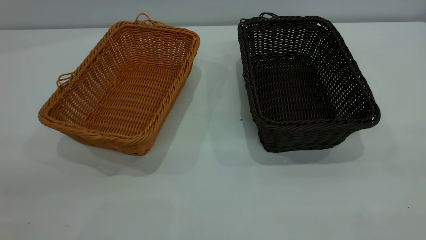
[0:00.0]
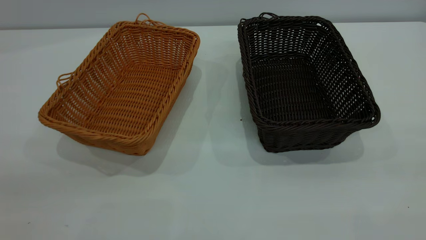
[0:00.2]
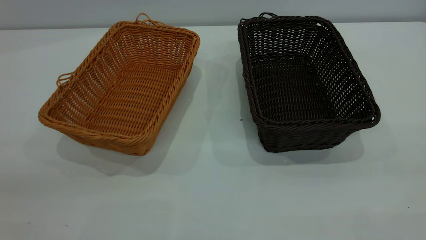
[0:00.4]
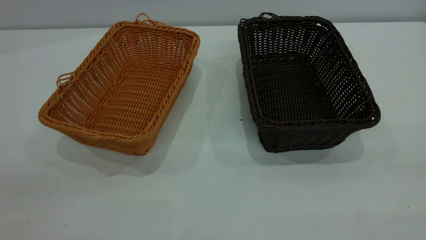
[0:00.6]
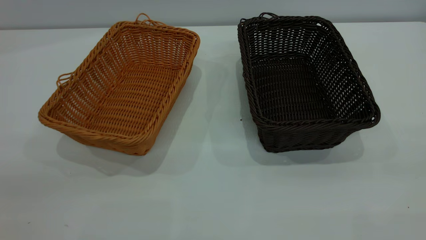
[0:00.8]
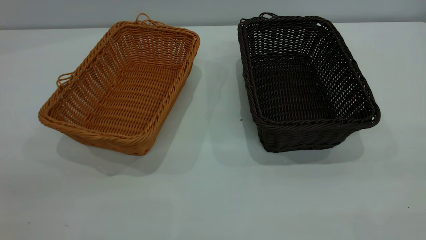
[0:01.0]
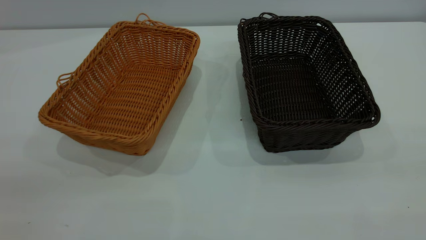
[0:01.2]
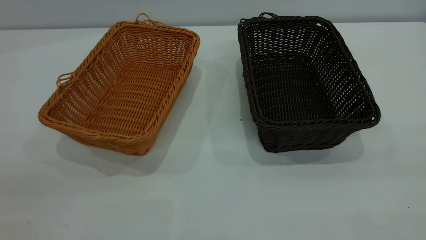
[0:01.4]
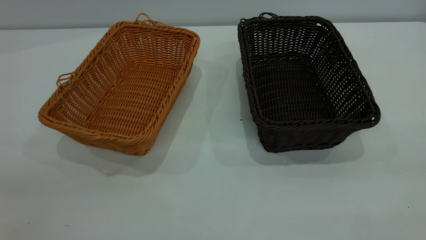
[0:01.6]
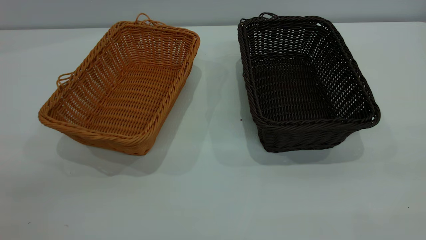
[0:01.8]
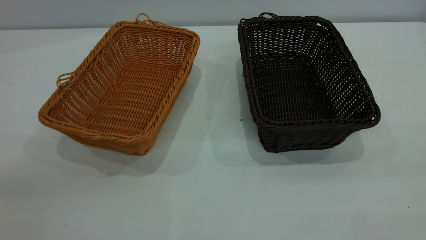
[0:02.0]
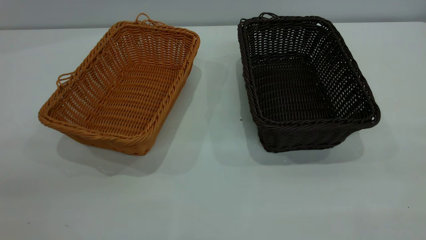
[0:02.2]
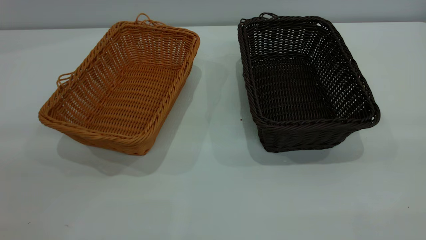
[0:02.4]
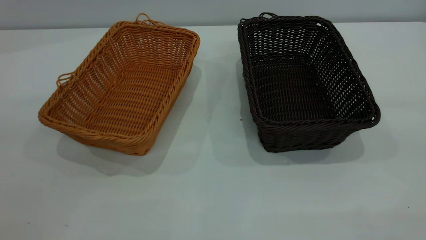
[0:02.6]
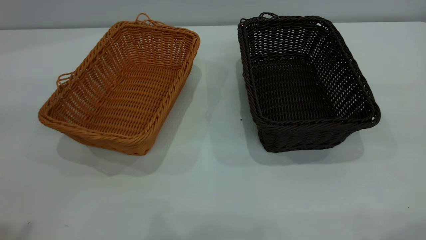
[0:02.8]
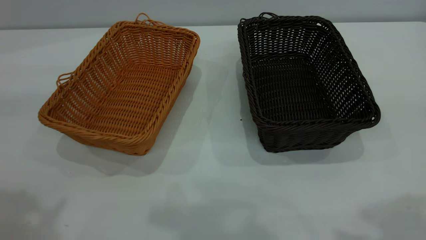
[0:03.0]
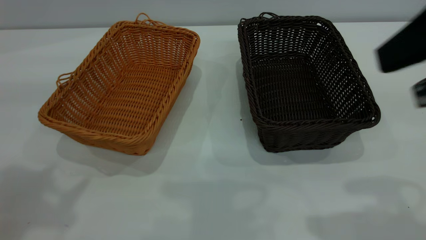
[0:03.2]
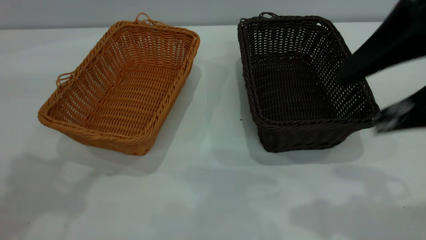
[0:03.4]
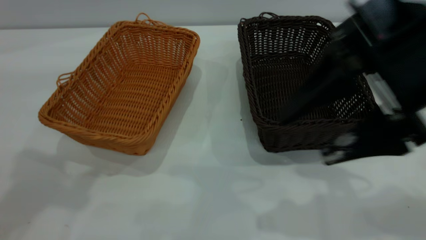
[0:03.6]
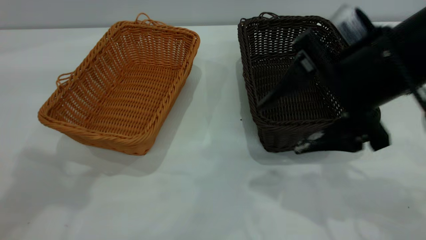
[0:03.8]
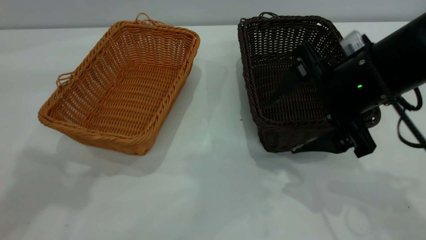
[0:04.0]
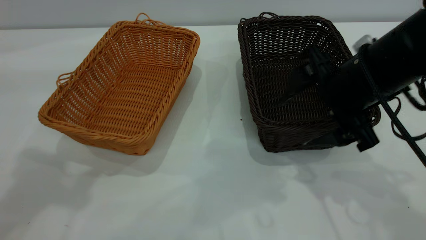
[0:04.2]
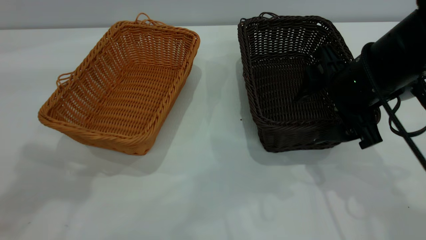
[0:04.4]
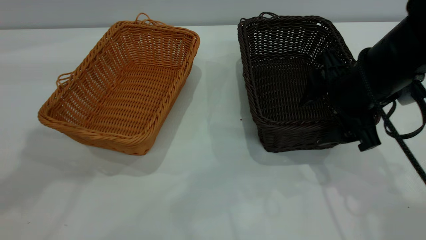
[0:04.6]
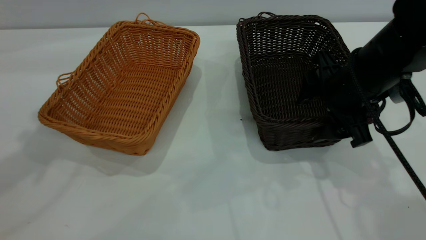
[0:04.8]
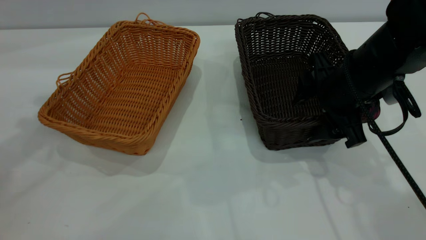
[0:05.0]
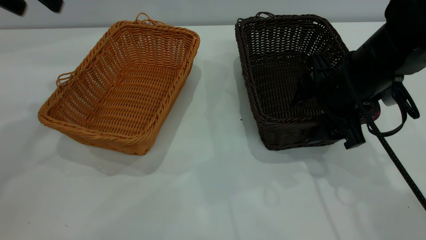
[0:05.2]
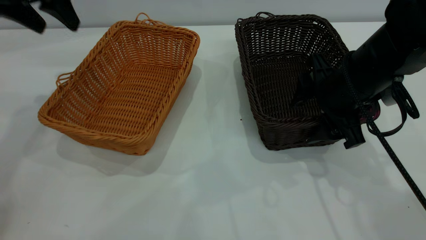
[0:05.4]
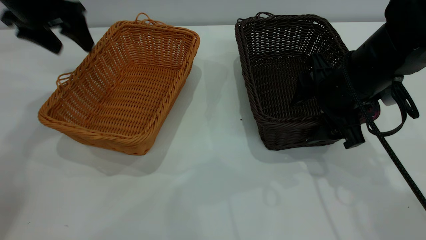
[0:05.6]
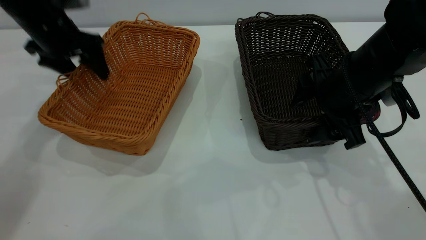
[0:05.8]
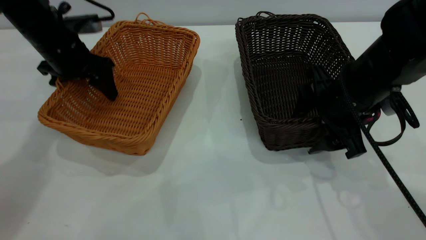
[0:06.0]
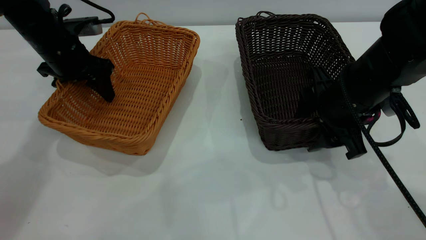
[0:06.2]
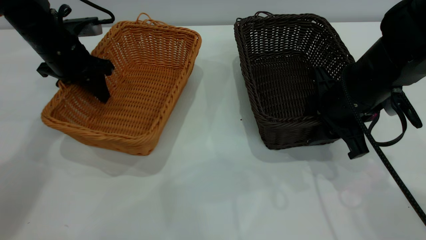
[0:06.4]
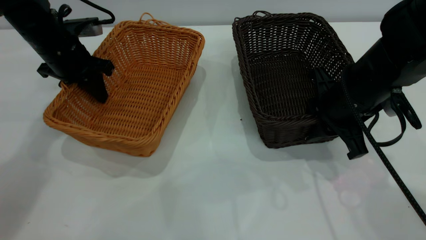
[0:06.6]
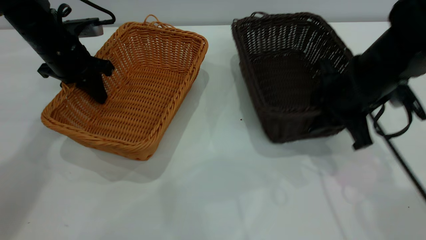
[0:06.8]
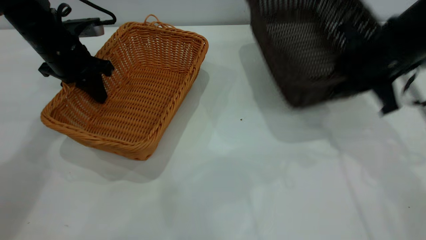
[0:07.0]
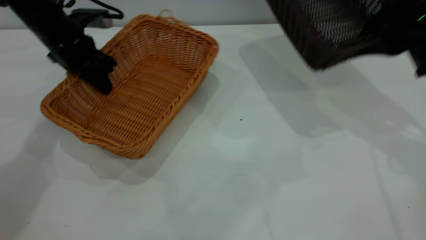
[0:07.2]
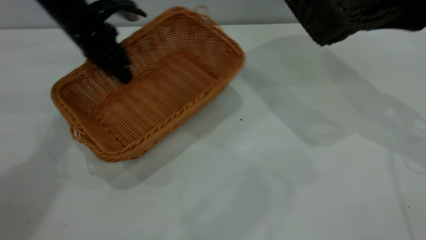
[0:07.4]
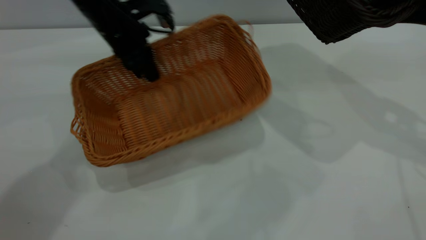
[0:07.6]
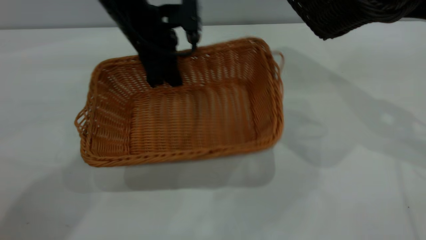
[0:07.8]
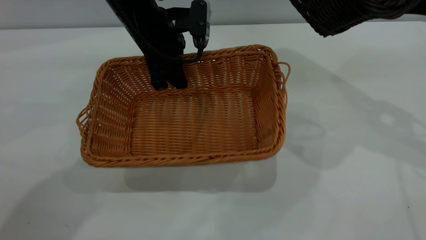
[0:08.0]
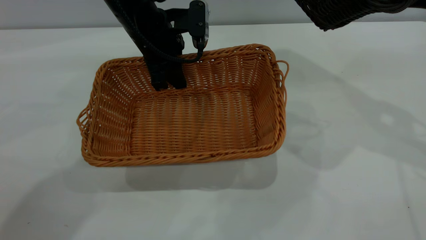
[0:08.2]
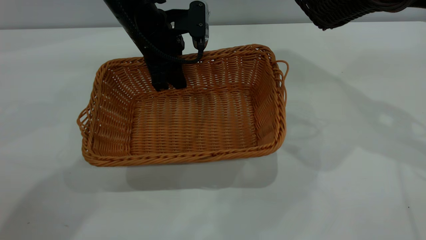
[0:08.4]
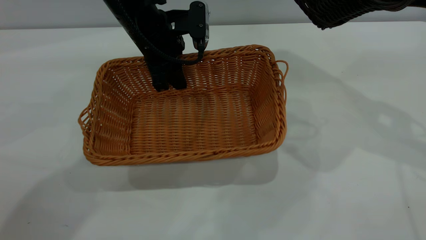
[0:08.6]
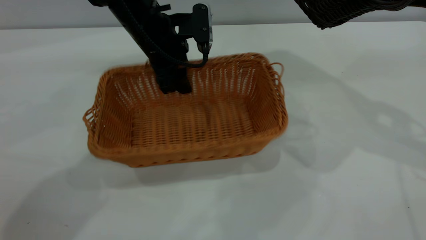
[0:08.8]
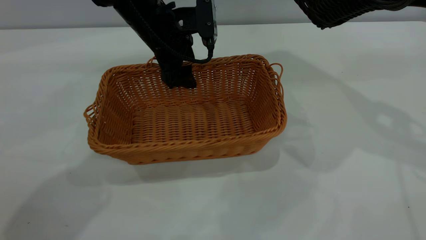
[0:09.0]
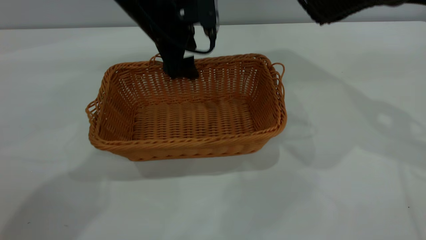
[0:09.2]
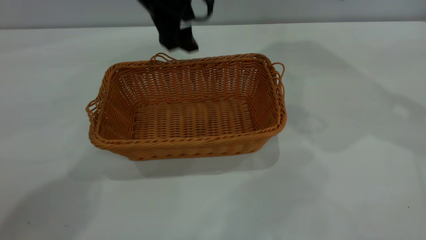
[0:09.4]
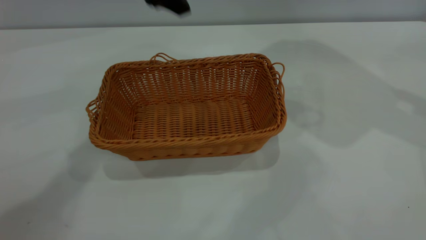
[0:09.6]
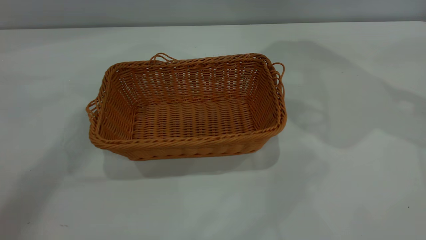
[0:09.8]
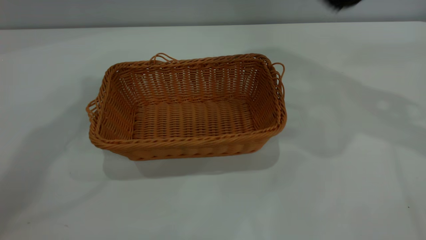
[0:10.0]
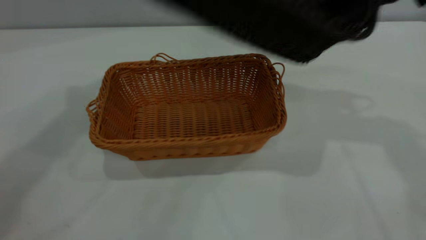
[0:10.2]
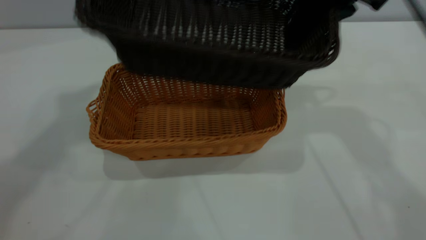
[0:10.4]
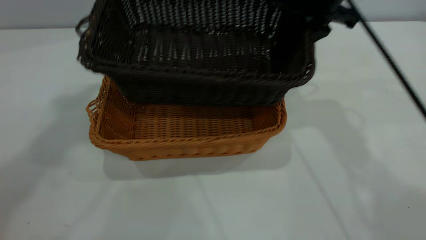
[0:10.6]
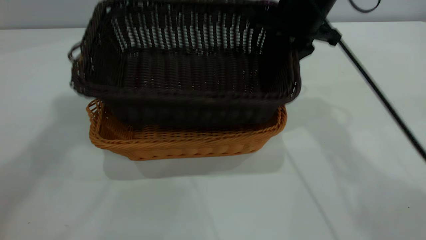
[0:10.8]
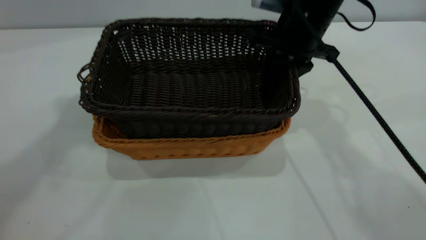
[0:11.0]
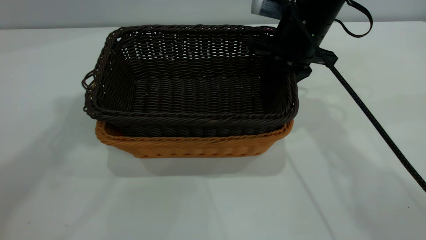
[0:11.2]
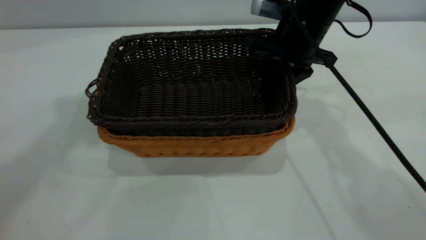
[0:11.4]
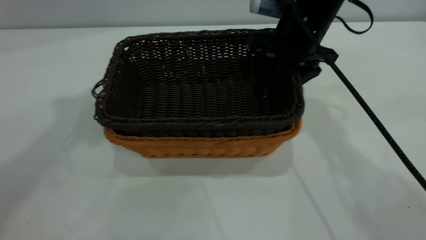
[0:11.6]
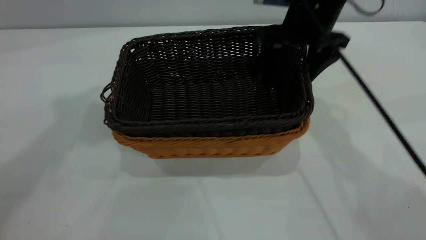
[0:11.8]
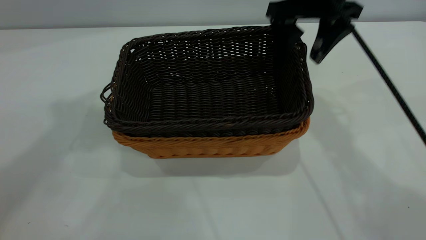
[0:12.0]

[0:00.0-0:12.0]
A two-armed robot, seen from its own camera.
Task of the whole recording: the left gripper grasp the brown basket and place it in the center of the table, the right gripper grasp the black basket and place it inside the brown one.
Step, 0:00.0 to 0:06.8: Pick up the light basket with the right gripper.
Step, 0:07.0 to 0:09.2: Place the light-colored basket in the center.
0:00.0 to 0:01.6: Both grippers stay put.
0:03.0 to 0:04.4: The right gripper heads downward and forward, covering about 25 cm, while the left gripper shifts approximately 5 cm forward.
0:04.4 to 0:06.0: The left gripper travels downward and forward by some 30 cm.
0:06.0 to 0:07.6: The left gripper moves to the right, some 10 cm, and closes up. Meanwhile the right gripper moves upward and to the right, roughly 20 cm, and closes up.
0:07.6 to 0:09.0: The left gripper goes approximately 5 cm to the right, and opens its fingers.
0:09.0 to 0:10.4: The right gripper travels to the left and forward by about 15 cm, while the left gripper heads upward, covering roughly 40 cm.
0:10.4 to 0:12.0: The right gripper moves about 10 cm downward and comes back, and opens its fingers.

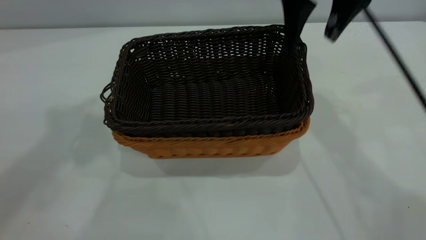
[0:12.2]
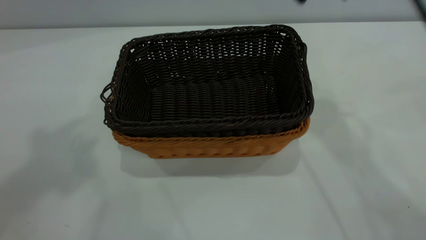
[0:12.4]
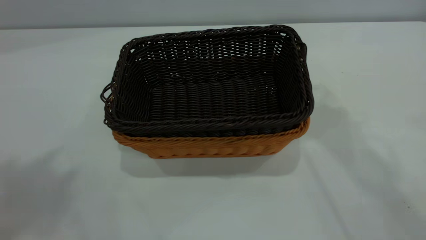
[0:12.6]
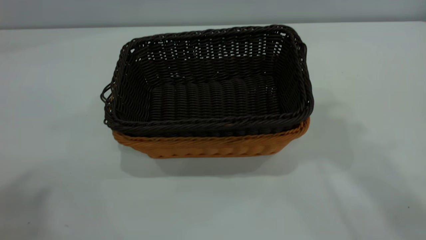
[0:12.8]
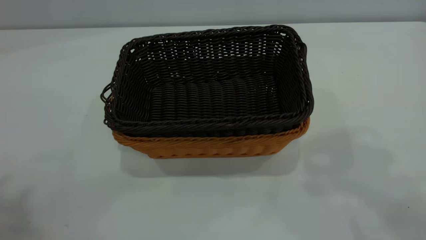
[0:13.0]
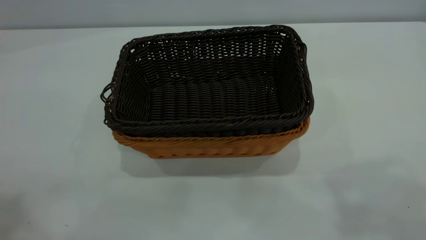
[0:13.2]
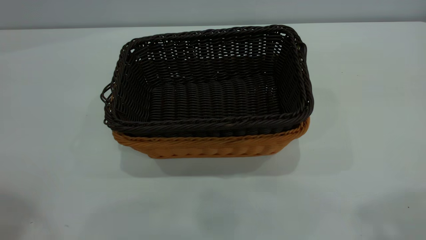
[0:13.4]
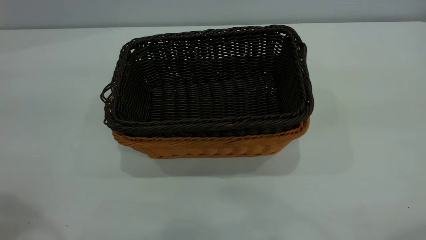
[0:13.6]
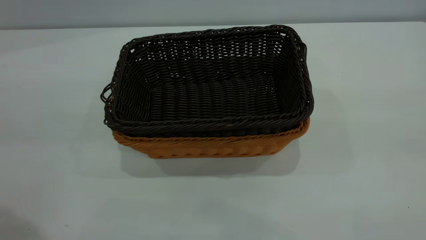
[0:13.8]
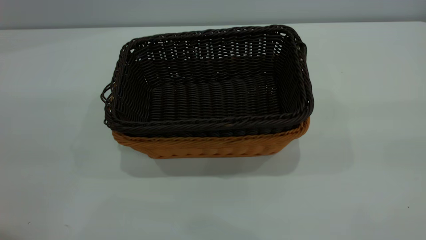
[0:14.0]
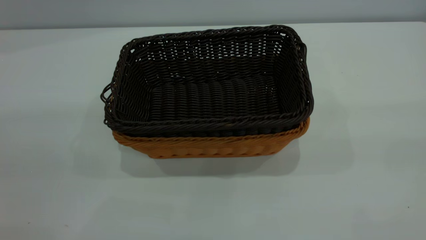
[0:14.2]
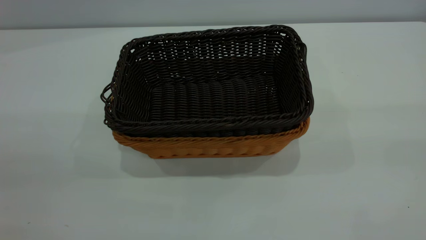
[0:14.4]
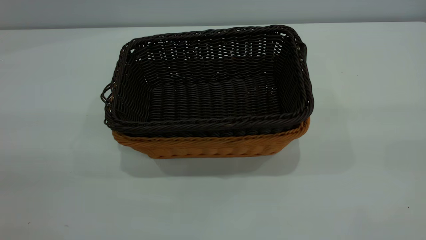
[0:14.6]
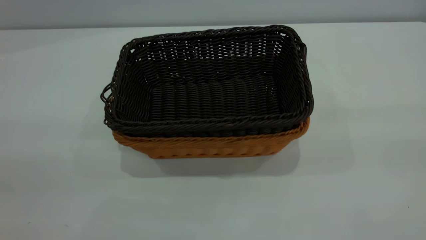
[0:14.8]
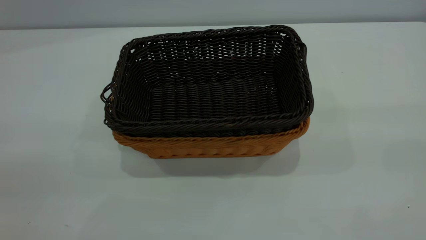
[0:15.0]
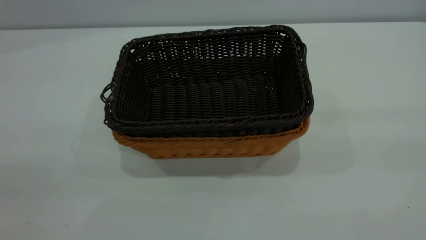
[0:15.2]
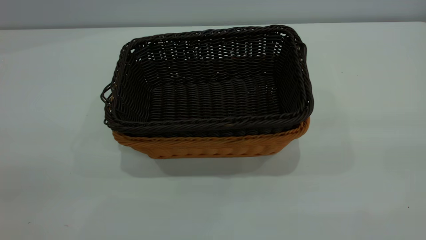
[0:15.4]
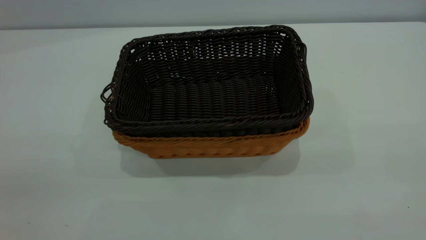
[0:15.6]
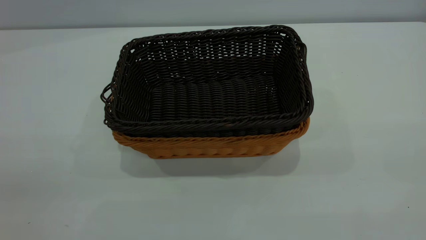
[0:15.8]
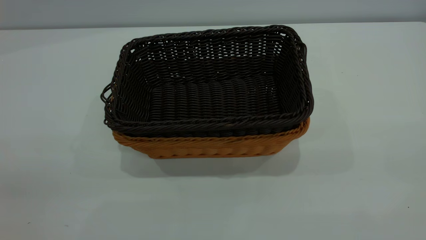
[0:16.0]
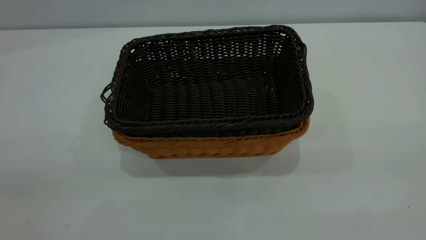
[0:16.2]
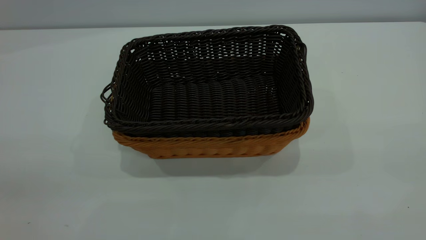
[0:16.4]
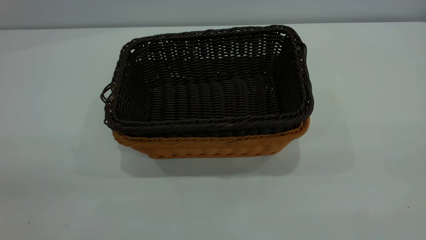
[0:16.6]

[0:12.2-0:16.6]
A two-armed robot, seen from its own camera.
Task of the whole recording: the left gripper grasp the brown basket and place it in the center of the table, the right gripper grasp the black basket and place it inside the brown one.
0:12.2 to 0:13.6: The left gripper shifts roughly 20 cm backward and downward. Meanwhile the right gripper travels backward, to the right and upward by approximately 35 cm.
